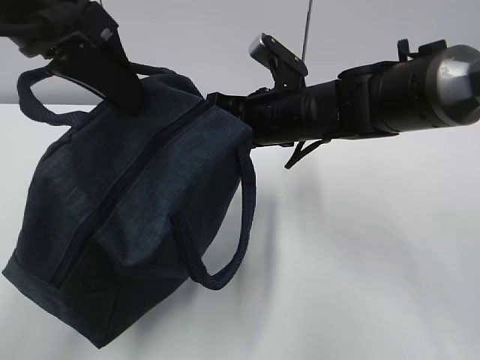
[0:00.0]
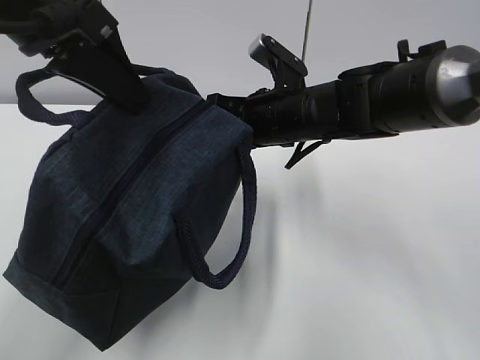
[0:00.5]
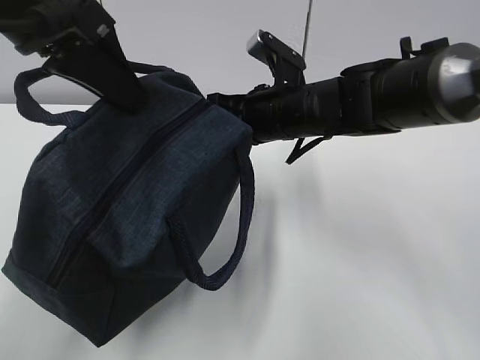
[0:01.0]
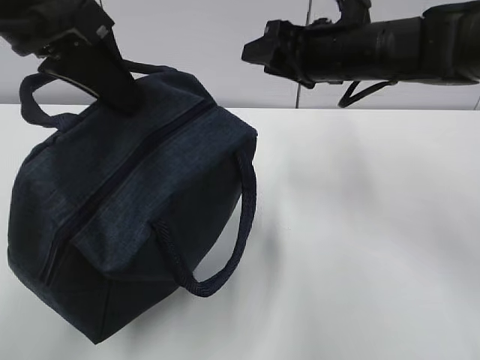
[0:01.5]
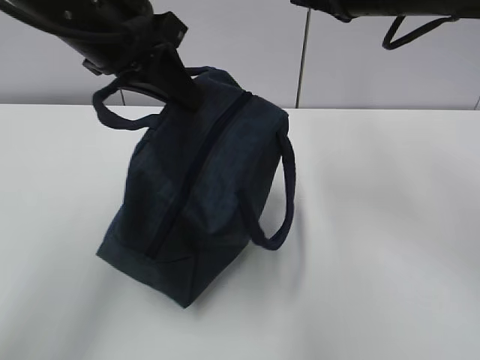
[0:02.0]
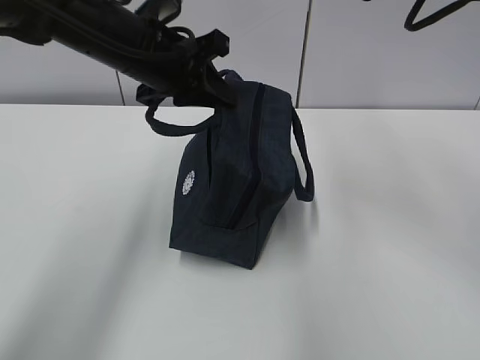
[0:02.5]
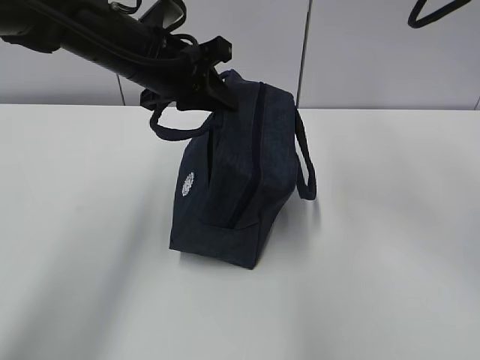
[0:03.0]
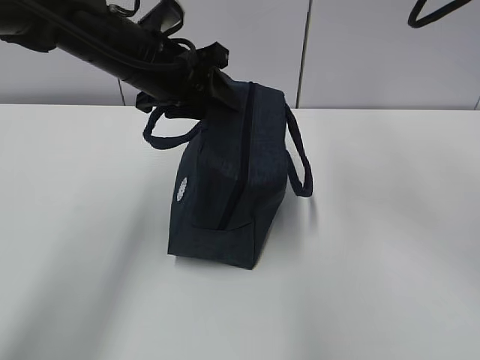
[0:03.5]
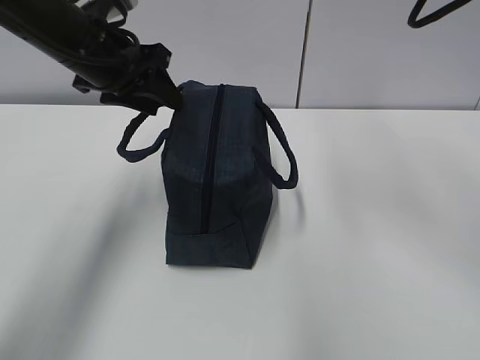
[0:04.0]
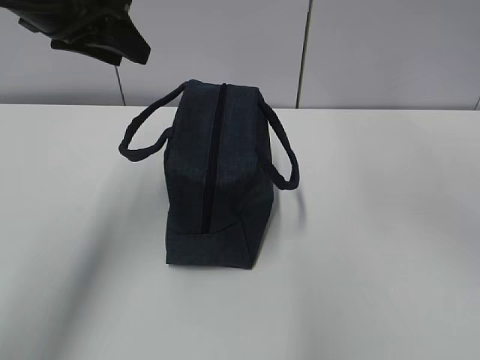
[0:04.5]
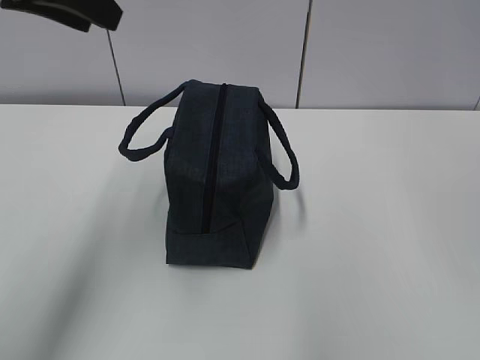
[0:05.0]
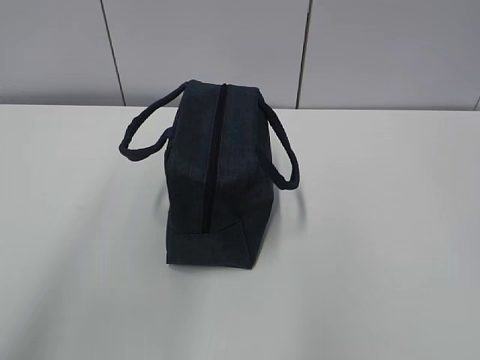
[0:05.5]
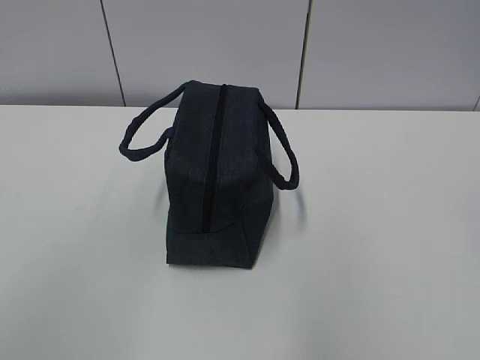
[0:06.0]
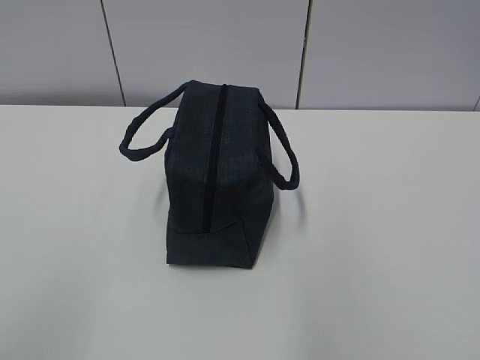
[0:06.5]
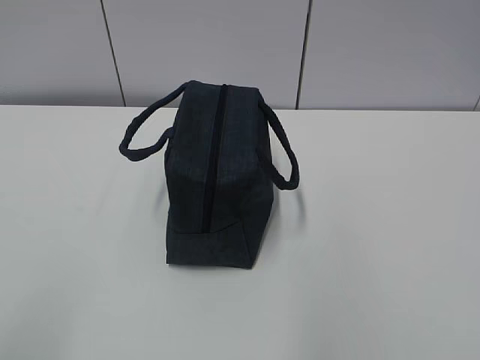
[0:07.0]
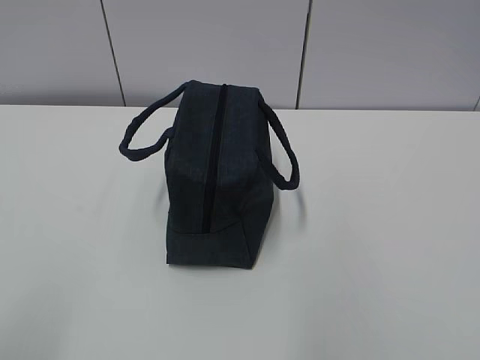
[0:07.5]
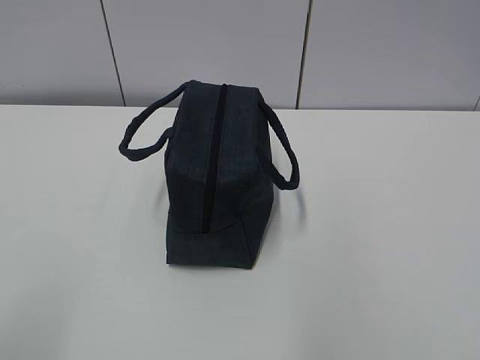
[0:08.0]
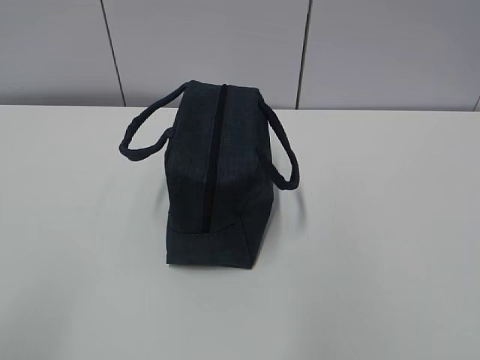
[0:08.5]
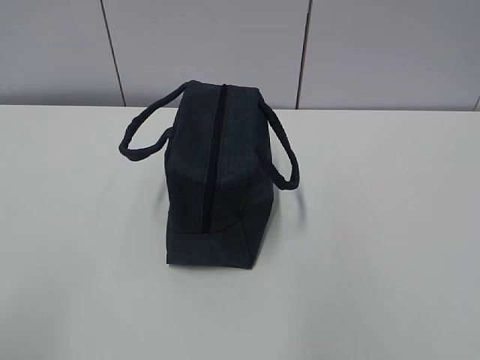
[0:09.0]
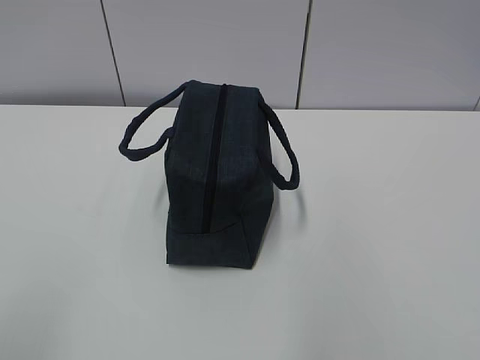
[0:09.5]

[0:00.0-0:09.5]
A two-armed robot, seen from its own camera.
0:00.0 to 0:02.0: The left gripper changes place by approximately 5 cm, while the right gripper shifts some 15 cm upward and to the right, and opens its fingers.
0:02.0 to 0:04.0: The left gripper heads forward and downward, covering some 10 cm, and opens up.
0:04.0 to 0:05.5: The right gripper travels backward and upward by some 25 cm, while the left gripper is displaced upward and backward by about 30 cm.
